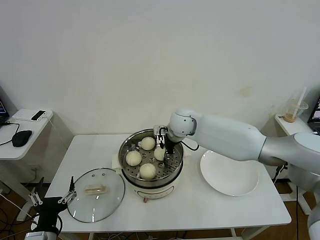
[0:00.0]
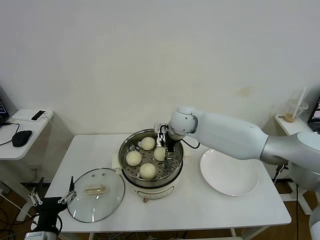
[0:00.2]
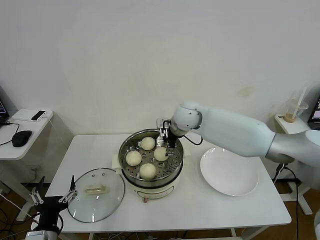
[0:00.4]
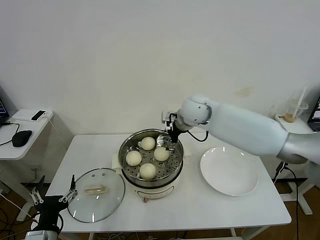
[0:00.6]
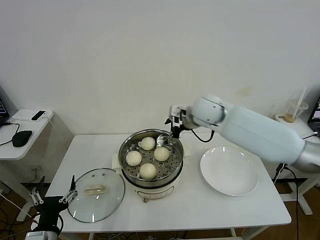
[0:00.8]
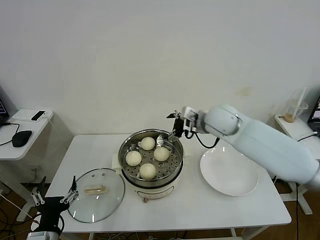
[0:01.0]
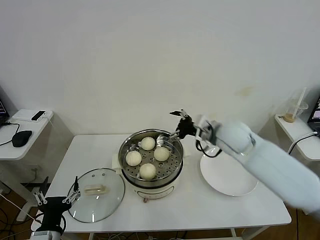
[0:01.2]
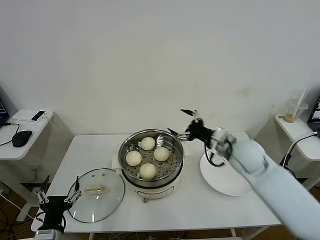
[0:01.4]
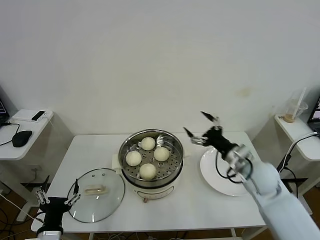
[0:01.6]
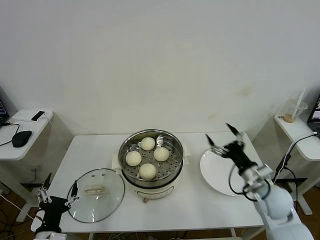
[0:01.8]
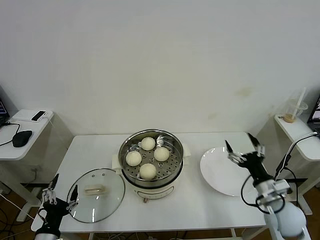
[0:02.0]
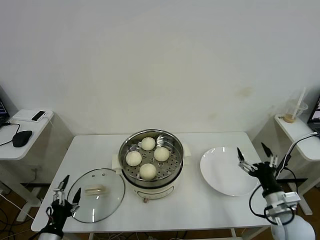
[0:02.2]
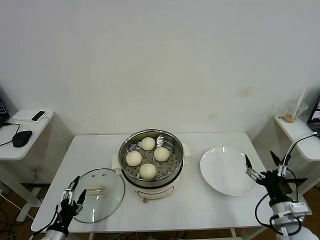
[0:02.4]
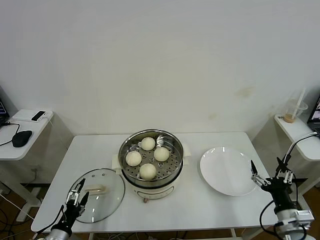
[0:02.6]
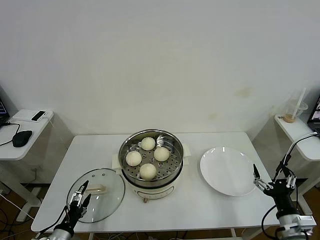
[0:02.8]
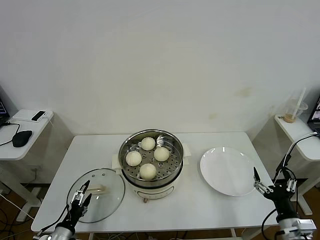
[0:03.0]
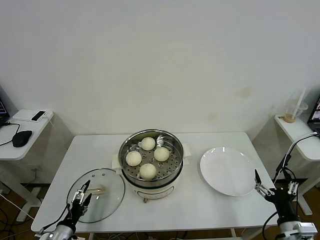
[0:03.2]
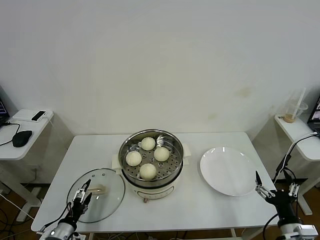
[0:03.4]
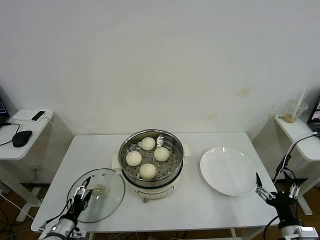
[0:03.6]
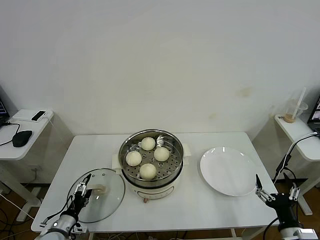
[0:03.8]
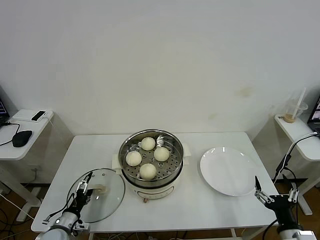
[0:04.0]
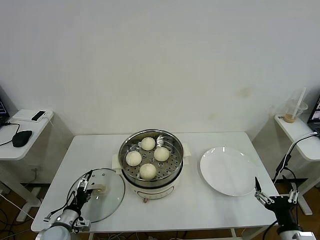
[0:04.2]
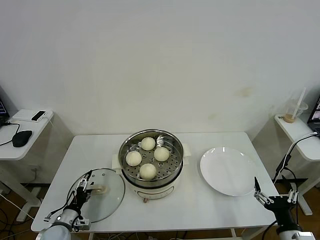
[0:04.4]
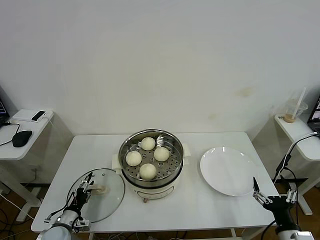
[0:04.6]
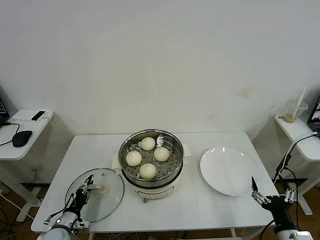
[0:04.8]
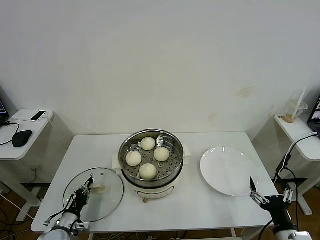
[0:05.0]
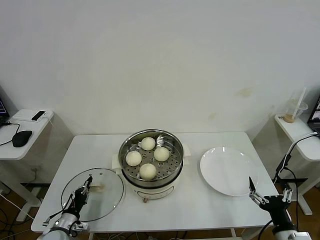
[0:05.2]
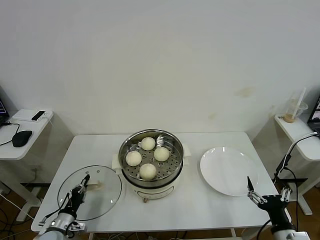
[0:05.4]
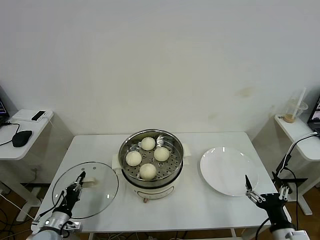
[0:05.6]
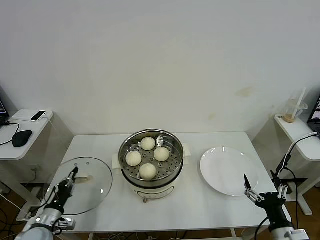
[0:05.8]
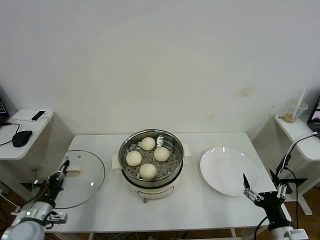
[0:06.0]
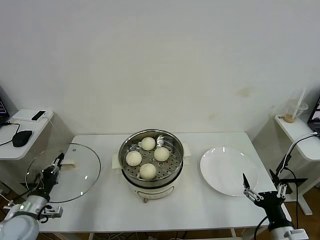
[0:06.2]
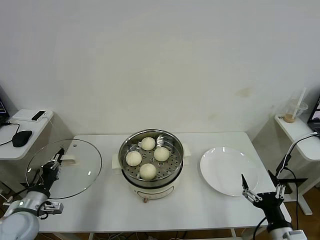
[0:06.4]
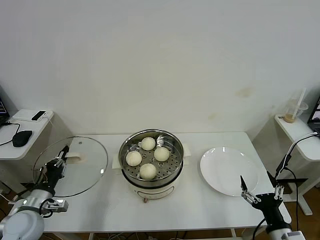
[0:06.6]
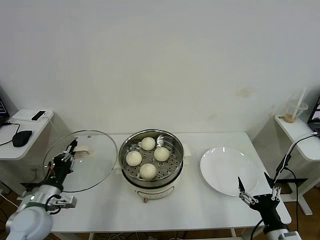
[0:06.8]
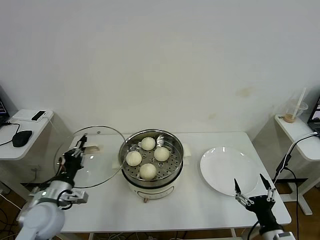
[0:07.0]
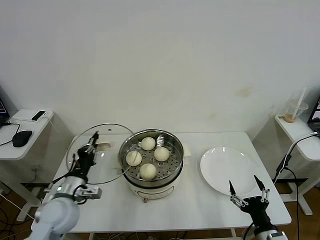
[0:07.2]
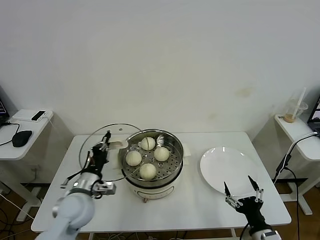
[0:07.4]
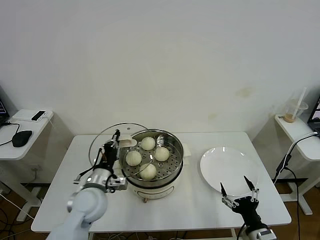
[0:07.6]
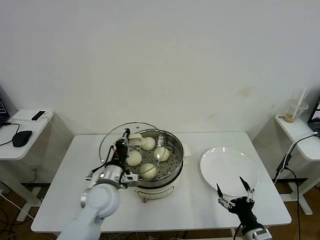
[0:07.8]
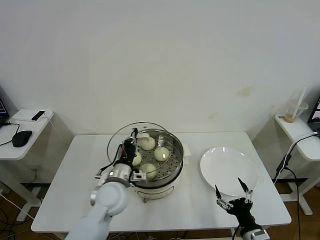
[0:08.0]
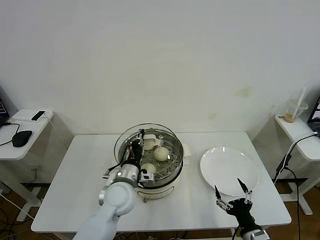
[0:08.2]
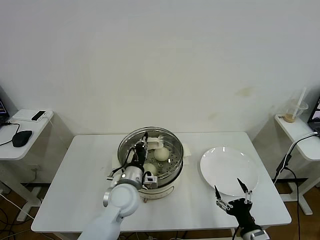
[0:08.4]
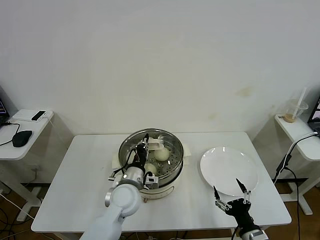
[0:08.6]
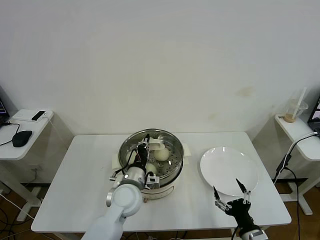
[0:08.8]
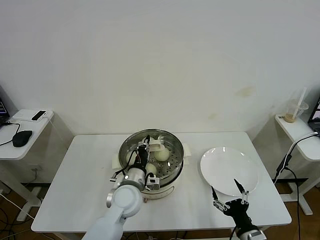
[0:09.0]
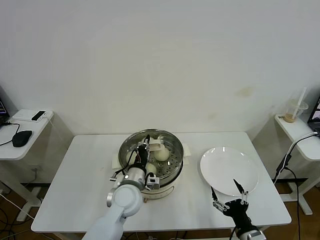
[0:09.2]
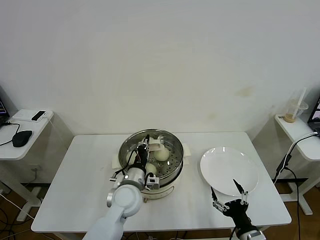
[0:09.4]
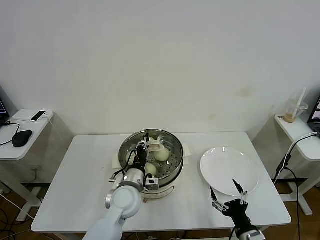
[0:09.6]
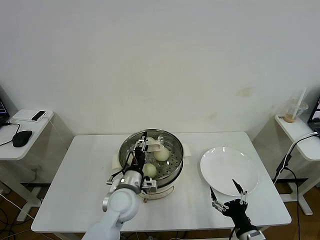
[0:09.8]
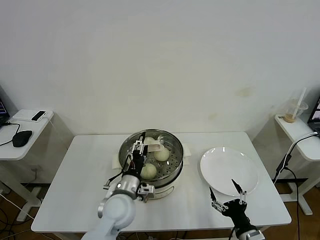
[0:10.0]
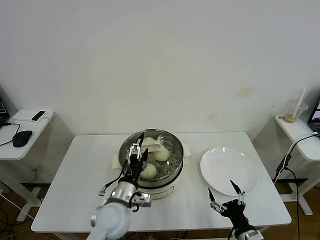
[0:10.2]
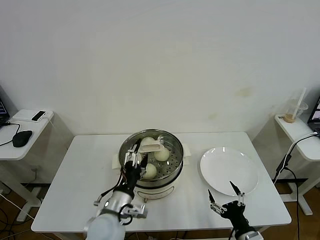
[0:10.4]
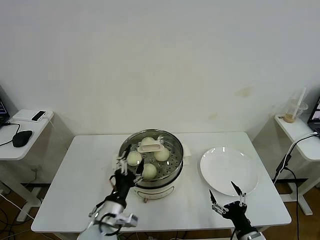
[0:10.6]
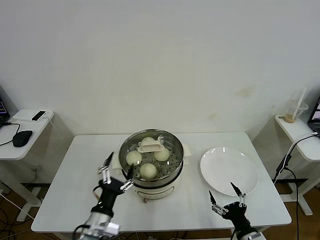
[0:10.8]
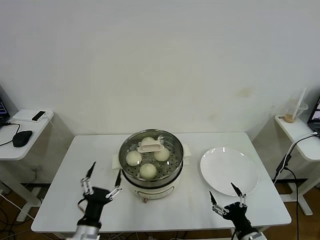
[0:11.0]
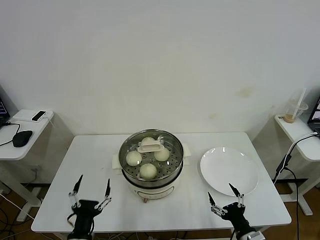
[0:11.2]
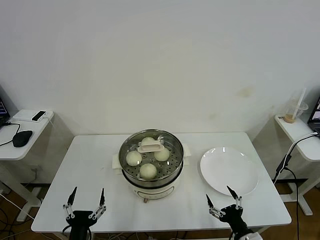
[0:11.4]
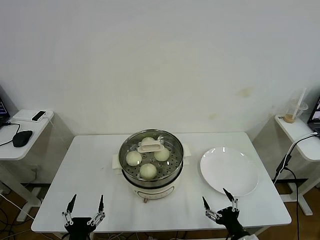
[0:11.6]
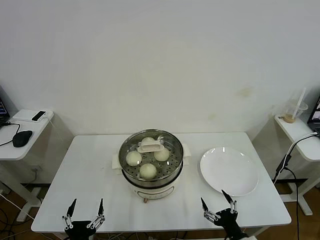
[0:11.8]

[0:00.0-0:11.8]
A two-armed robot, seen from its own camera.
Task of the whole recording: take steamed baozi put them in steamer then cover it.
Step, 0:00.6 to 0:05.2: Grasp the pot lid with left gripper.
Step, 0:05.4 to 0:10.4: Place the pot lid on the steamer with left gripper.
0:00.0 to 0:01.4: The right gripper travels to the right and backward by about 20 cm, and opens its fingers.
0:01.4 to 0:03.0: The left gripper is displaced downward and to the left by about 10 cm. The right gripper shifts about 30 cm backward, downward and to the right.
0:03.0 to 0:04.4: The left gripper travels forward by roughly 10 cm.
0:04.4 to 0:06.0: The left gripper is displaced upward by about 10 cm, and closes.
0:06.0 to 0:07.4: The left gripper goes roughly 20 cm to the right and upward.
0:07.4 to 0:08.8: The left gripper heads to the right, covering roughly 15 cm.
0:08.8 to 0:10.4: The left gripper travels backward by some 10 cm, and opens.
0:10.4 to 0:11.8: The left gripper goes some 20 cm backward and to the left.
